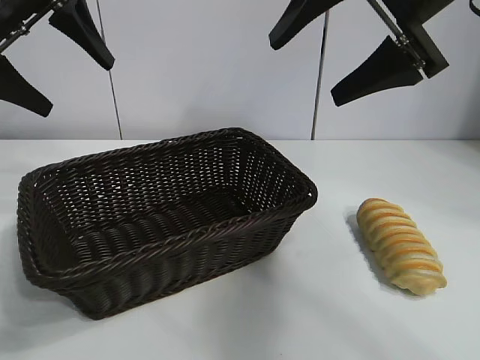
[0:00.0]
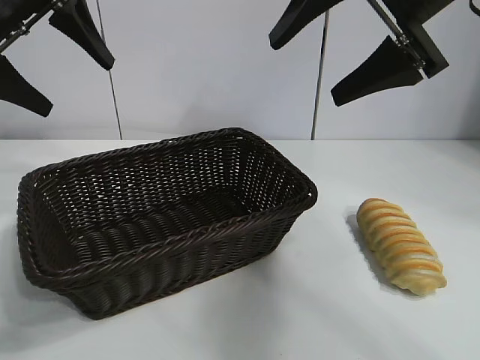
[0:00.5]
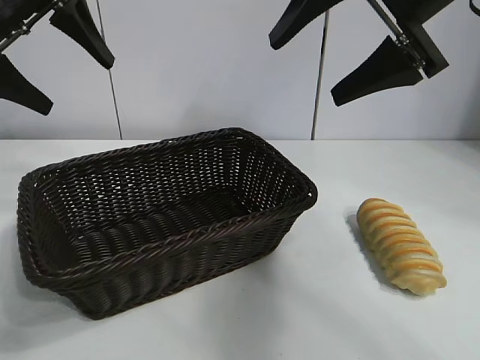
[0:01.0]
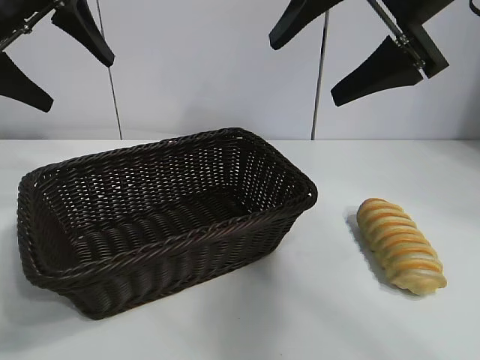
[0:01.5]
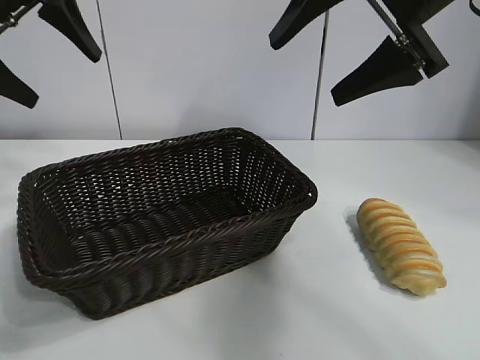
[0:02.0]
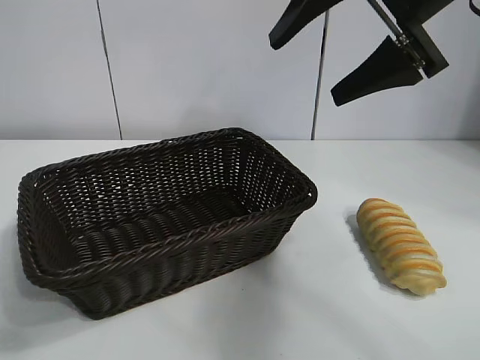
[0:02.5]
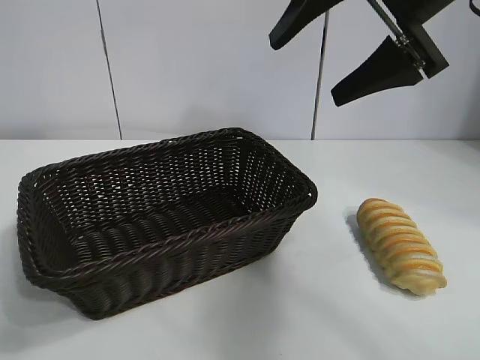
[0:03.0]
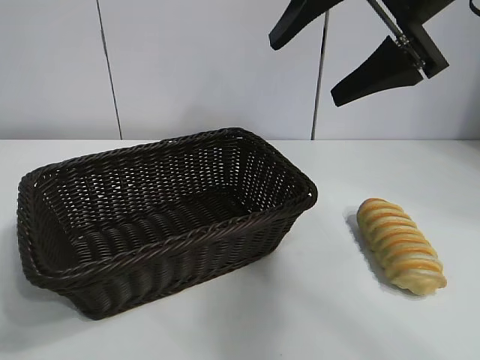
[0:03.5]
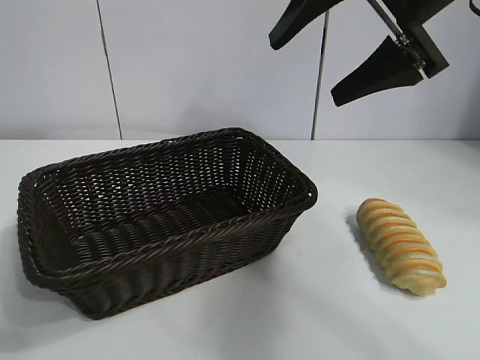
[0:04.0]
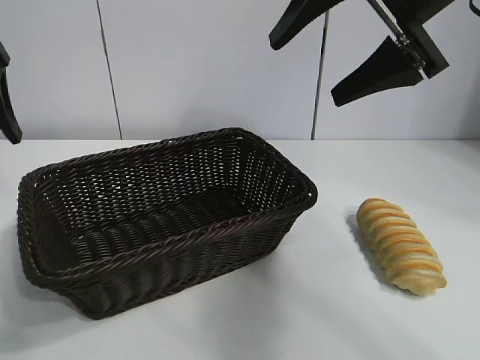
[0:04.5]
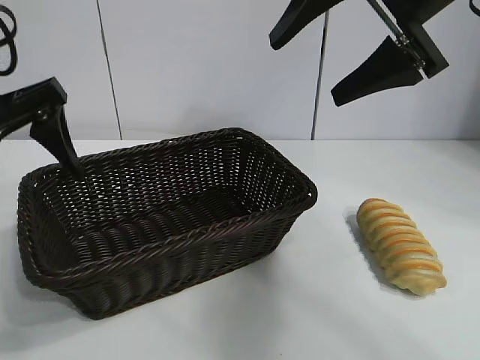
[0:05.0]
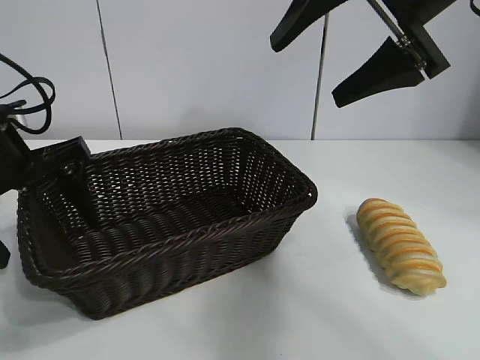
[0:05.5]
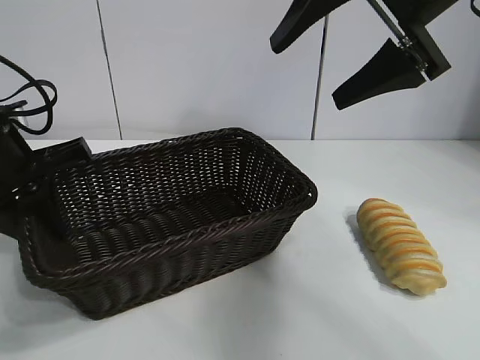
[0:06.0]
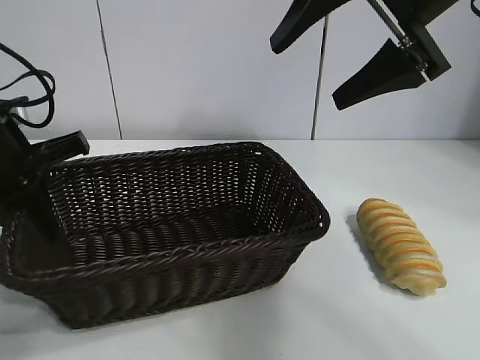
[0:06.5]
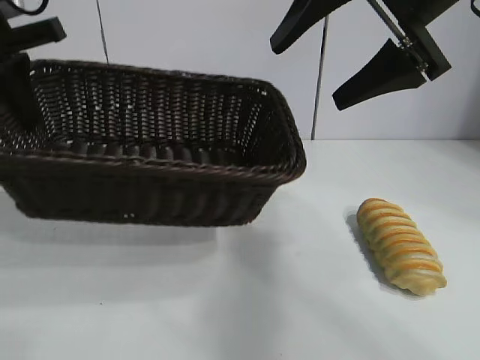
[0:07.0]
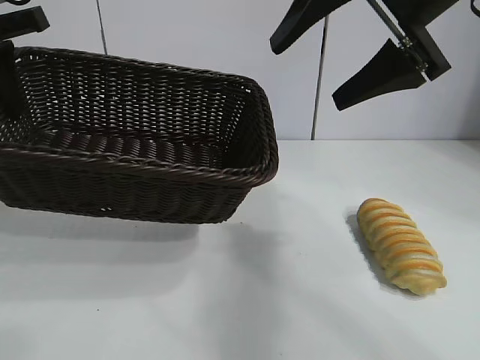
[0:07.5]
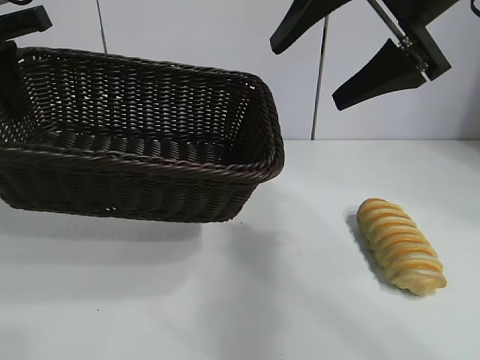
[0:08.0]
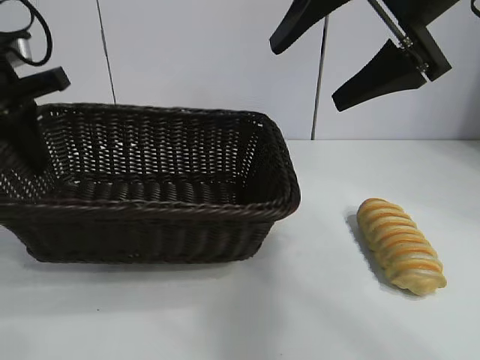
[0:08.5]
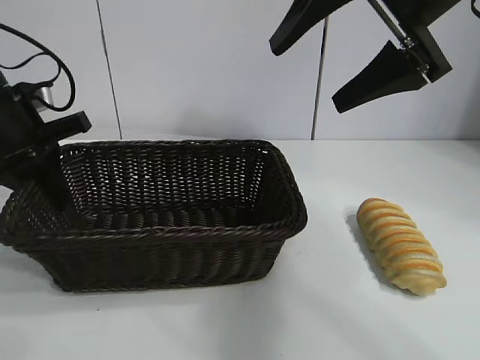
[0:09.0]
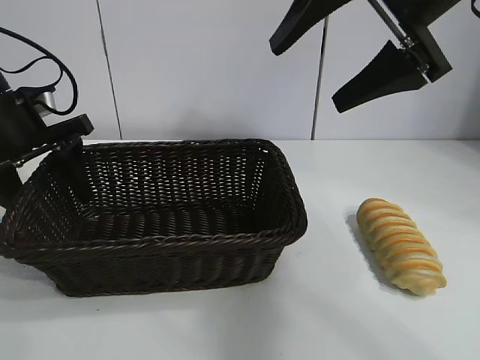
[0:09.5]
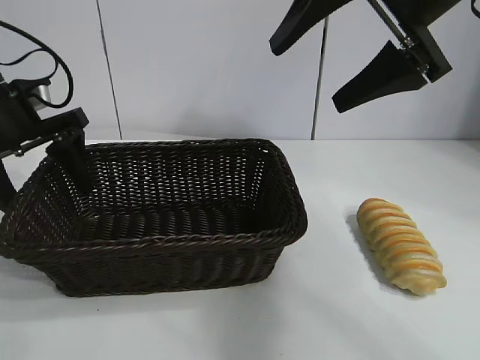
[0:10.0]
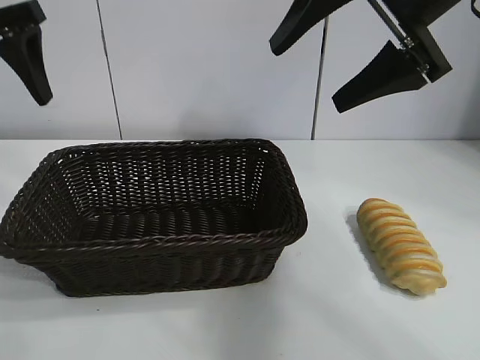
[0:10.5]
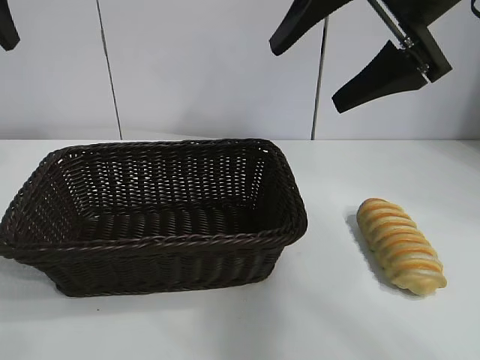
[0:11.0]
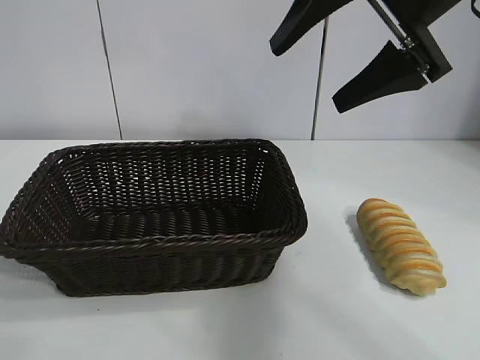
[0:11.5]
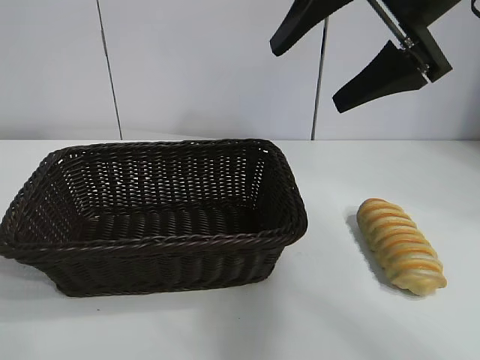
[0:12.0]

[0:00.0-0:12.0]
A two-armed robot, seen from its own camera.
Task of the whole recording: pick up the long bread and put it into the basket.
Step, 0:01.5 to 0:06.5: Grasp the basket with the left gripper.
Step, 0:07.0 to 0:09.5: Place the basket in the center of the table with the left gripper.

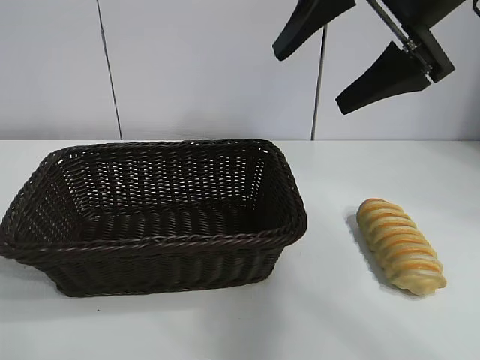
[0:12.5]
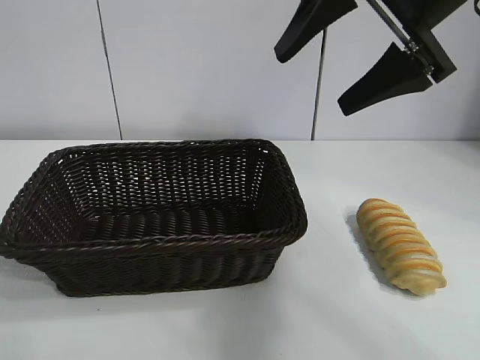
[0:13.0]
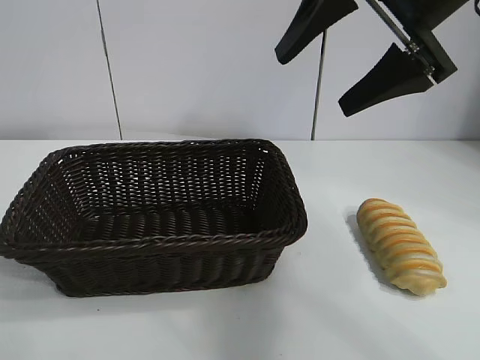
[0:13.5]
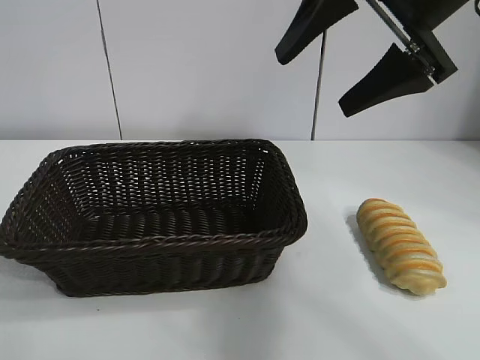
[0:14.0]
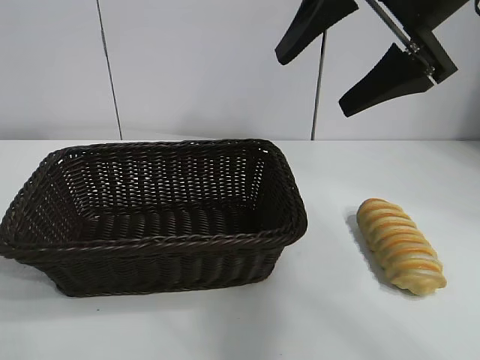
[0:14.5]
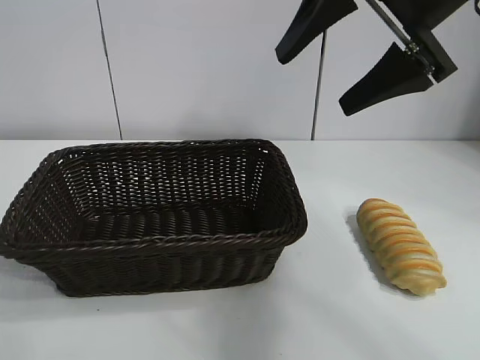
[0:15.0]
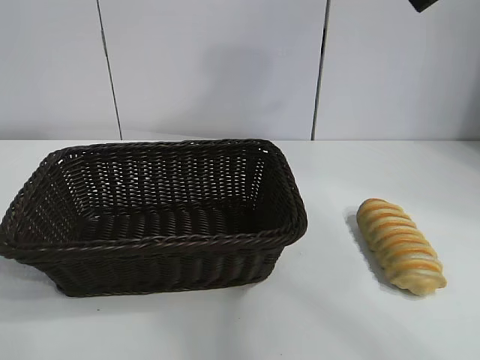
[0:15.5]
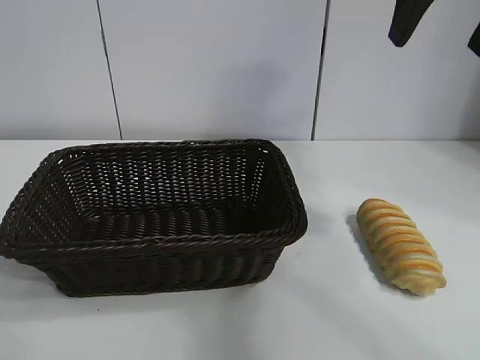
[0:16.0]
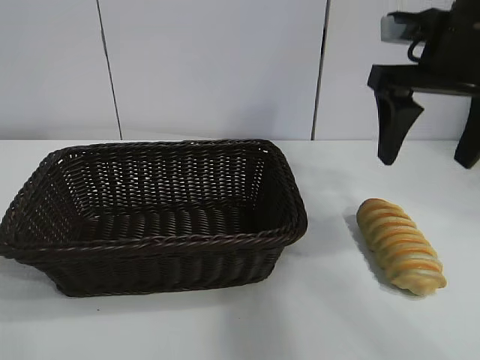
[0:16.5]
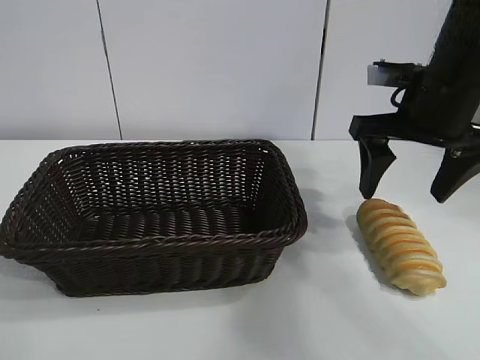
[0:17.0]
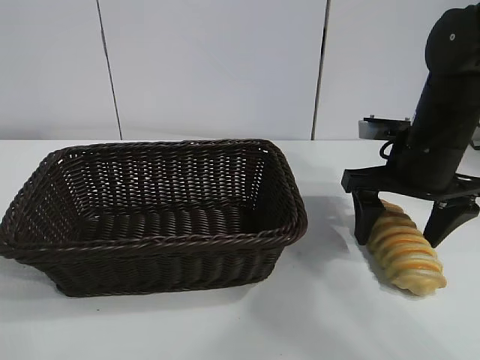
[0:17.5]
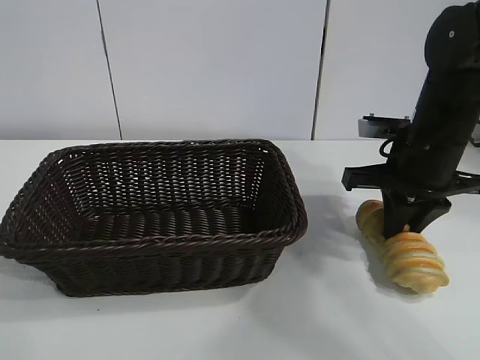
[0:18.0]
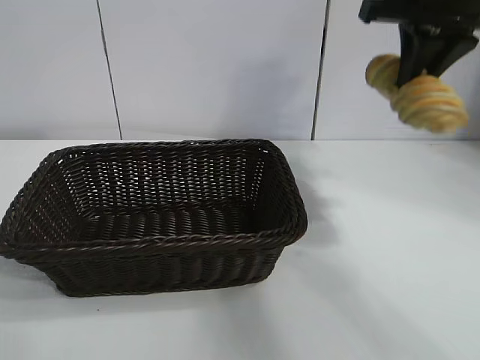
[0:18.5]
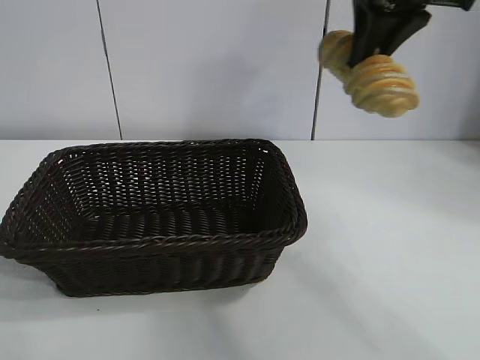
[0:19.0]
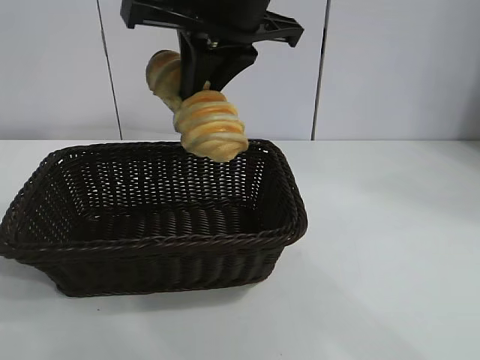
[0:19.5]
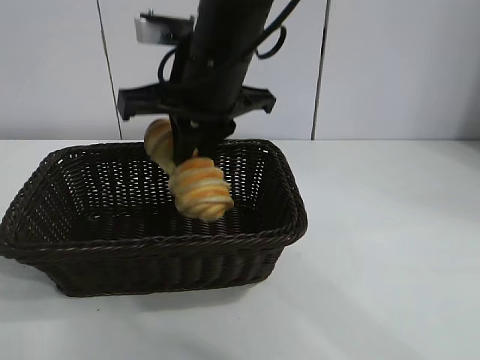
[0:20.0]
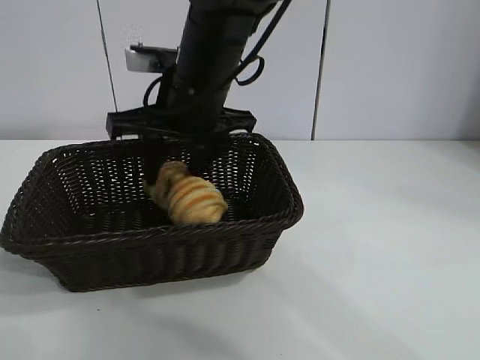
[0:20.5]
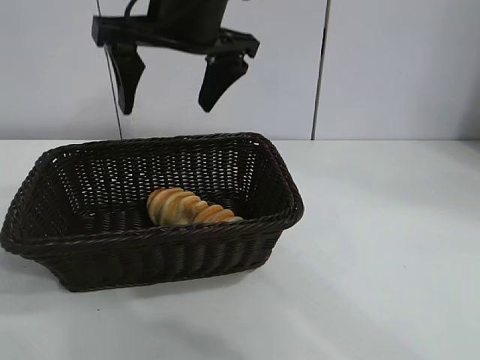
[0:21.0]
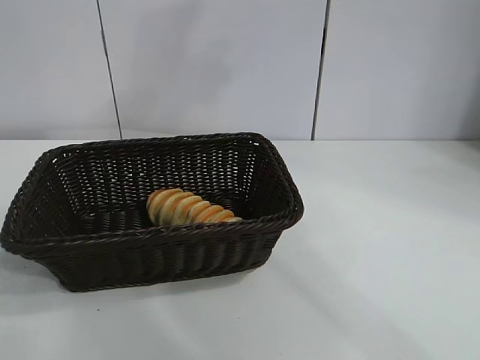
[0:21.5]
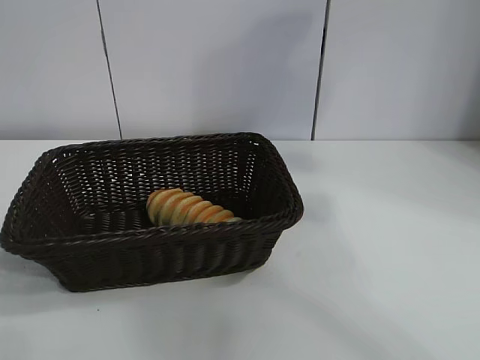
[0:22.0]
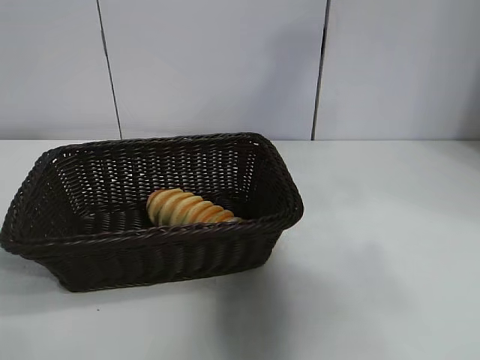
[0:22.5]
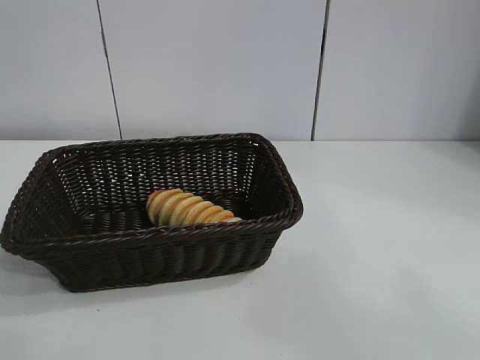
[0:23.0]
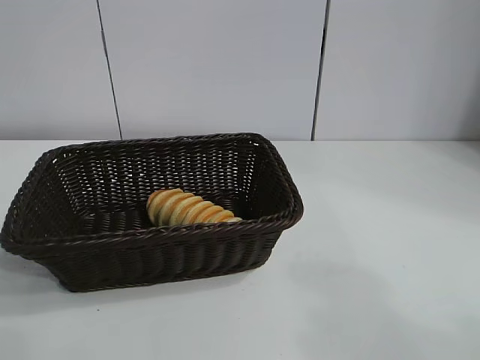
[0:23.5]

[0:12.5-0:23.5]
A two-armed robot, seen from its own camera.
Task of the whole recording: pick up the long bread and put it into the basket.
Step, 0:12.5 to 0:17.5: Grasp the long bread with right gripper.
Step, 0:18.0 to 0:20.5: Place the long bread in the basket with right gripper.
